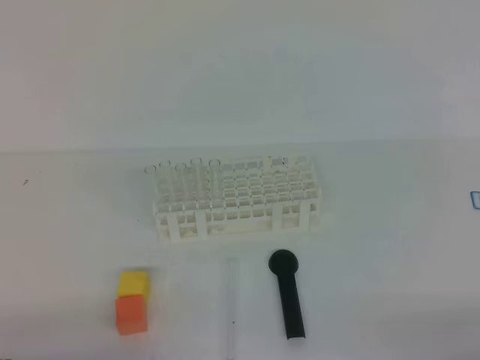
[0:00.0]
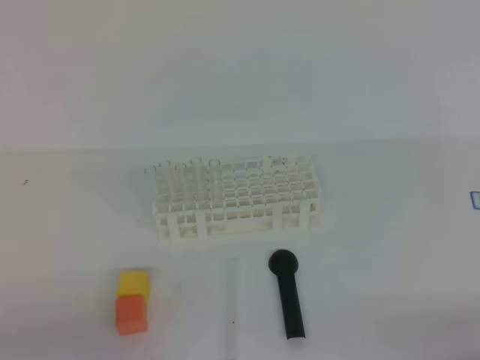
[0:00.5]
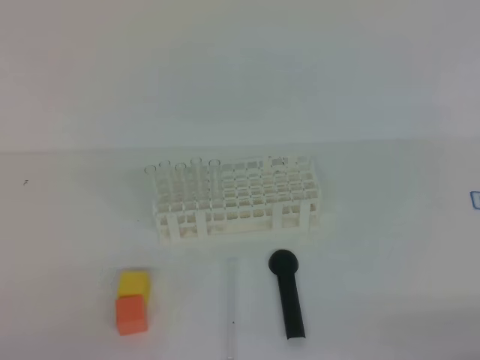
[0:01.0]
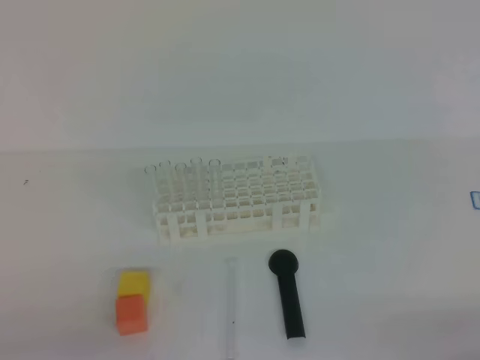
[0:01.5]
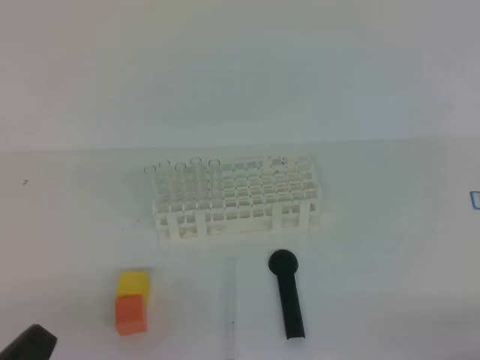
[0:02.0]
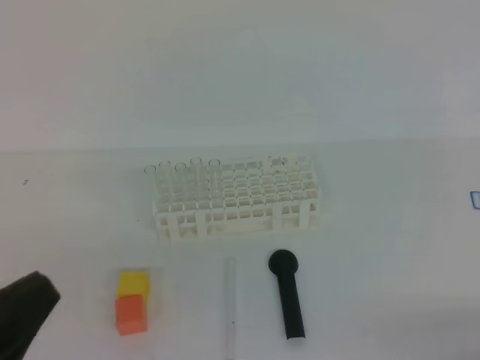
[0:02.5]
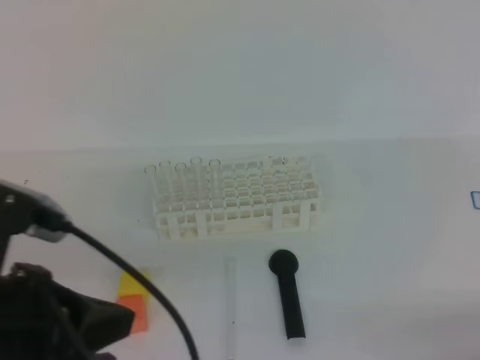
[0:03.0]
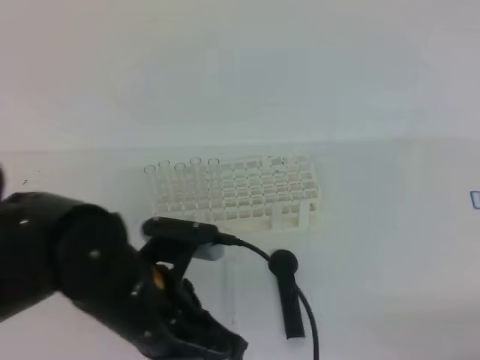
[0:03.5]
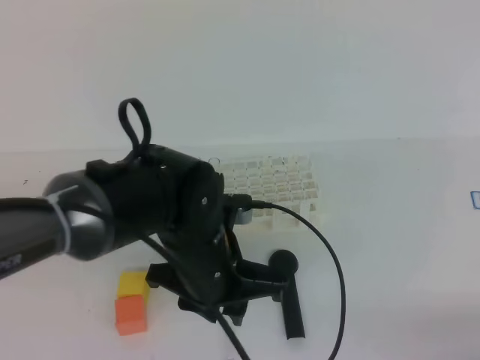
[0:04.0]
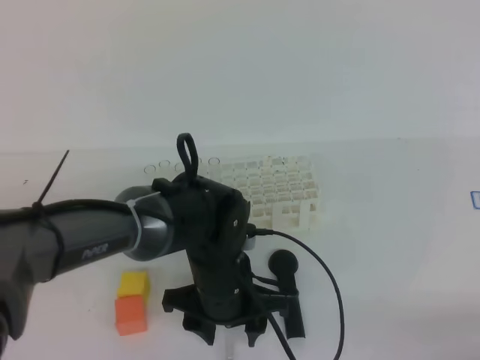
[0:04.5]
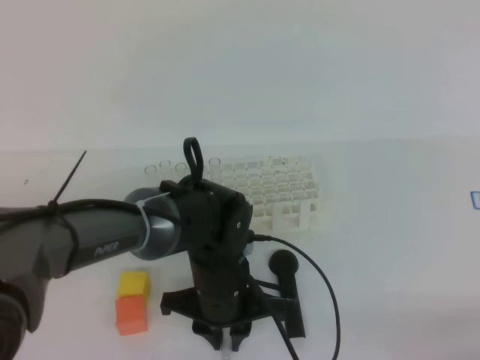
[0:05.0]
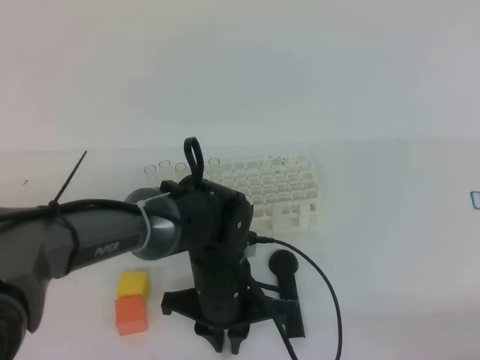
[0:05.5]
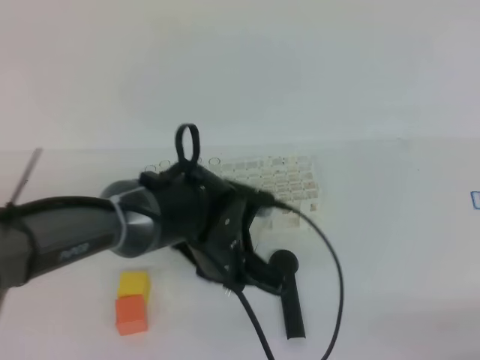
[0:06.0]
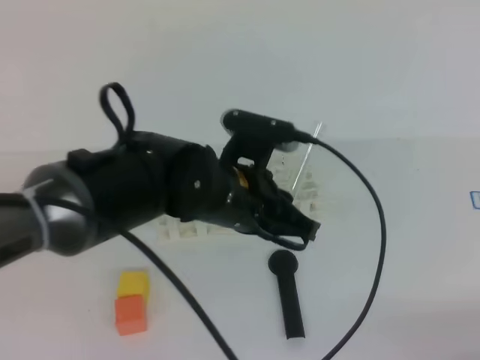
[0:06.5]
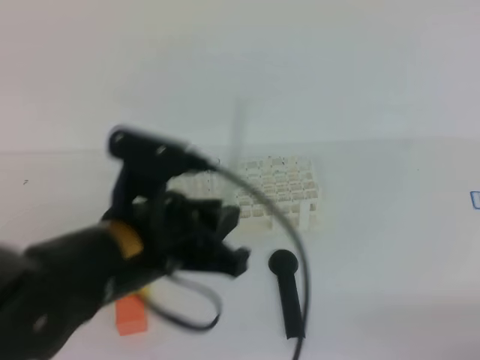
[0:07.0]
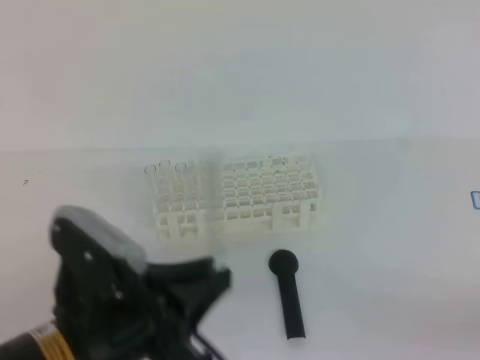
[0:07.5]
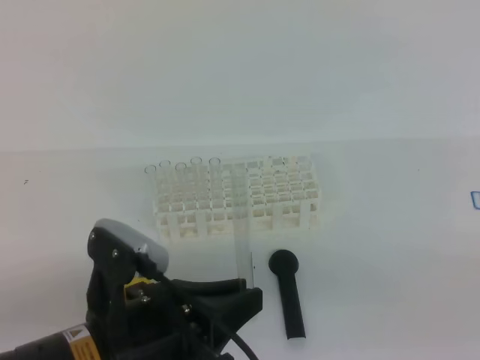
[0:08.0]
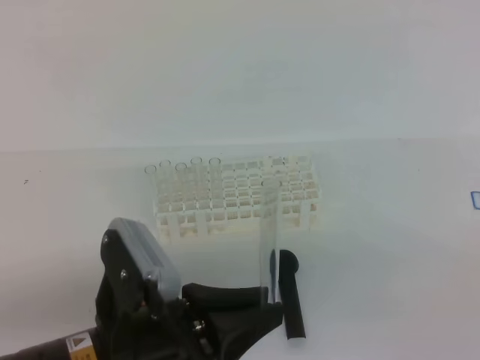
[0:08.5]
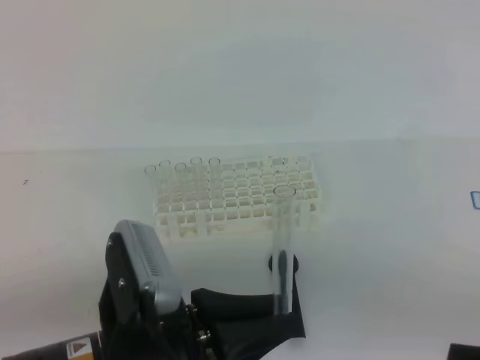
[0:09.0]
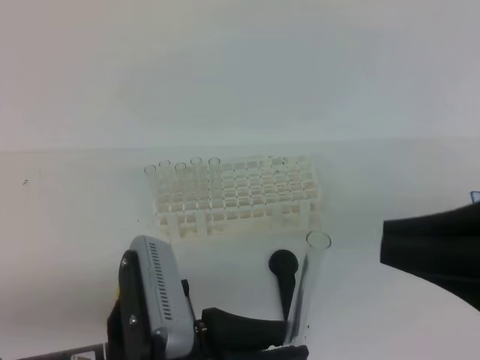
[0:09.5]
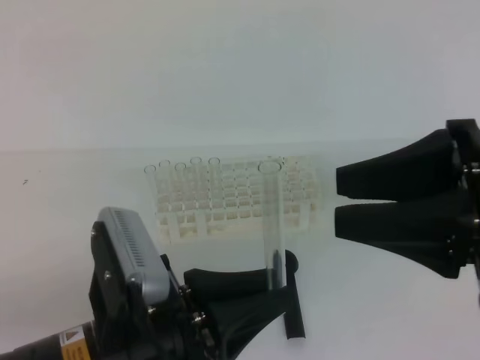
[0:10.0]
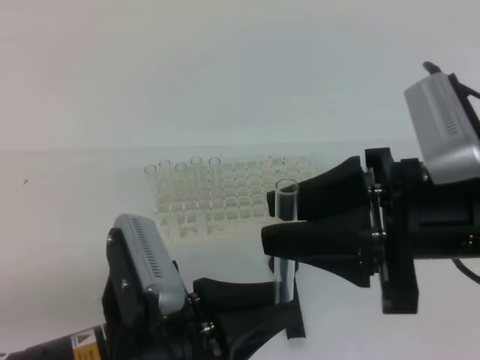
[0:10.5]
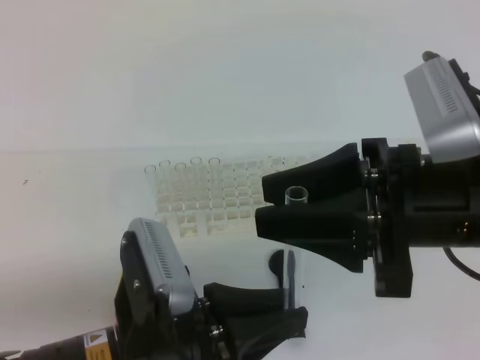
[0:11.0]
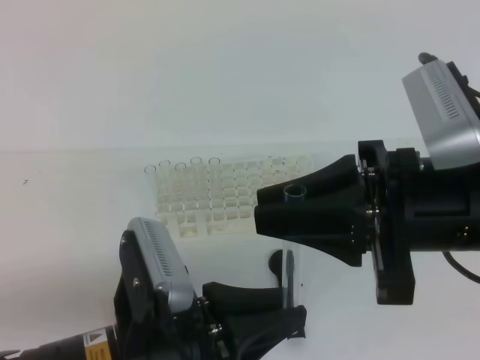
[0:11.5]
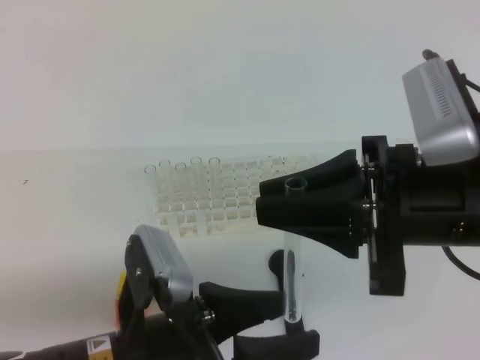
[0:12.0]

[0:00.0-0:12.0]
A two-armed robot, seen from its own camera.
0:02.0 to 0:04.0: The left gripper moves to the right and forward, roughly 30 cm, and opens its fingers.
0:04.0 to 0:06.0: The left gripper changes place by about 5 cm, and opens, then closes again.
0:06.0 to 0:08.0: The left gripper goes roughly 20 cm backward and to the left, while the right gripper travels upward by some 10 cm.
0:08.0 to 0:10.0: The right gripper travels forward, to the left and upward by about 20 cm, and opens its fingers.
0:10.0 to 0:12.0: The right gripper changes place by roughly 5 cm, and closes its fingers; the left gripper opens its fingers.

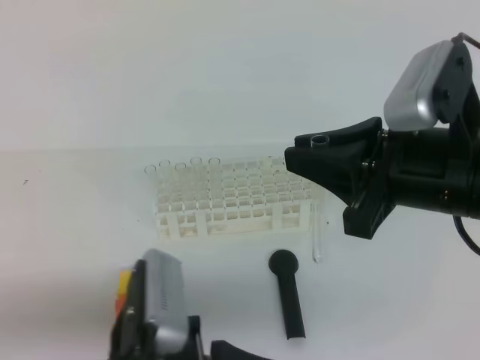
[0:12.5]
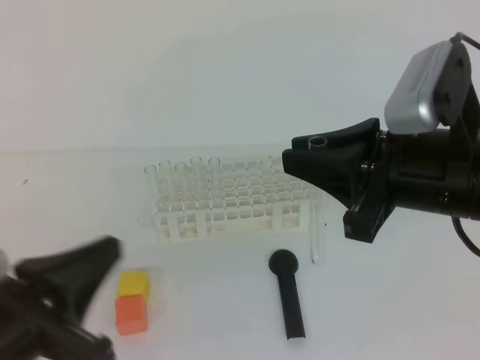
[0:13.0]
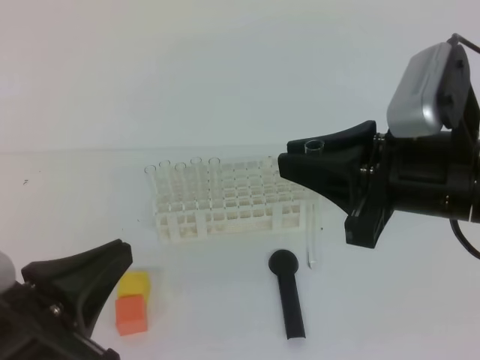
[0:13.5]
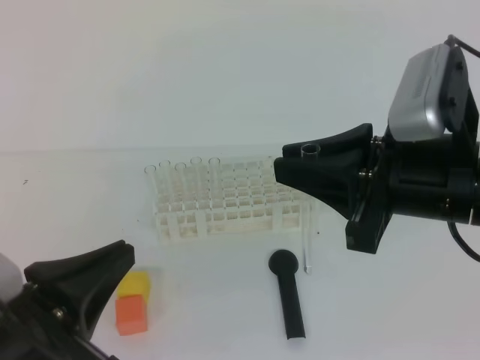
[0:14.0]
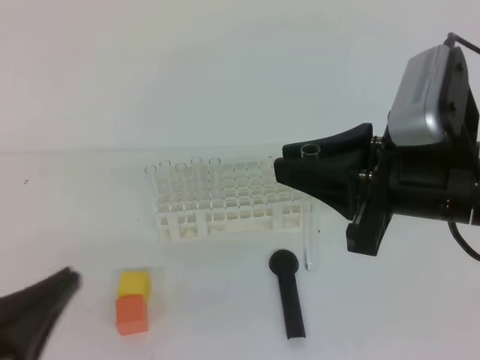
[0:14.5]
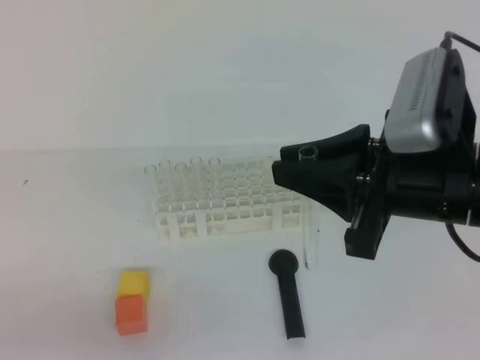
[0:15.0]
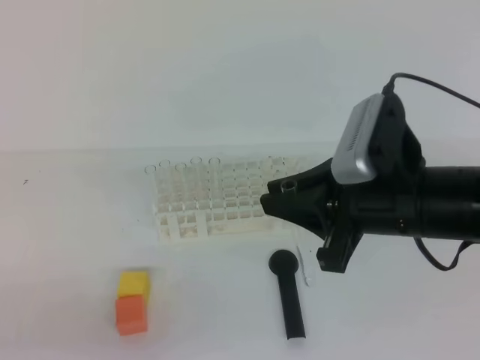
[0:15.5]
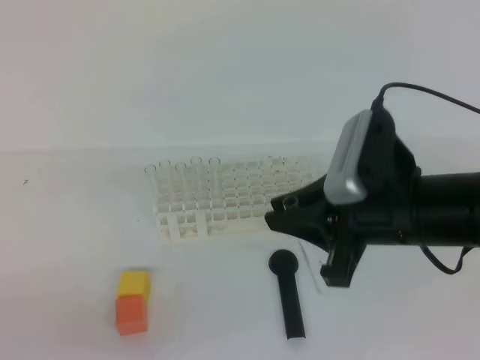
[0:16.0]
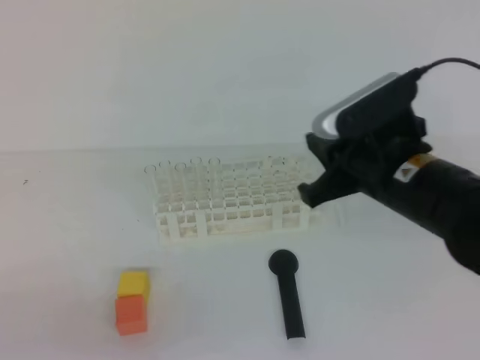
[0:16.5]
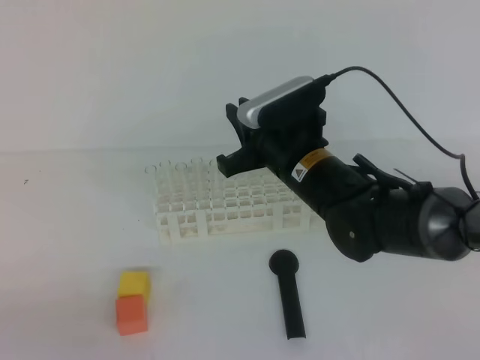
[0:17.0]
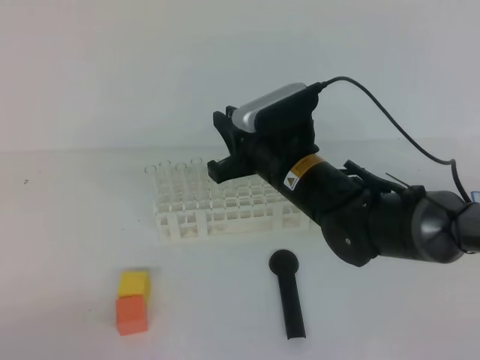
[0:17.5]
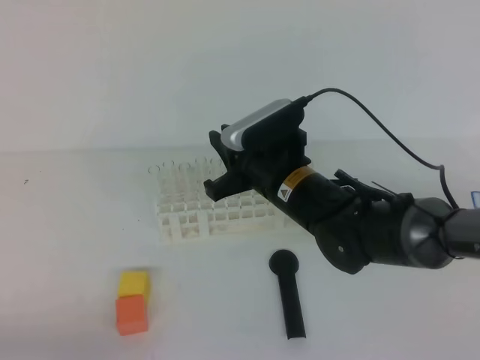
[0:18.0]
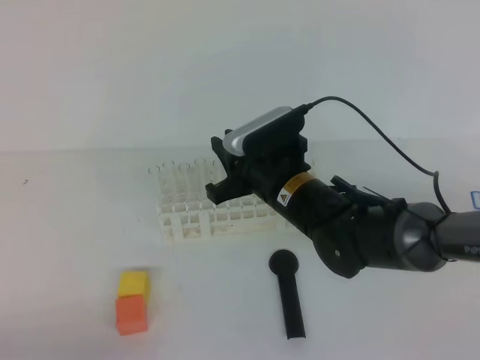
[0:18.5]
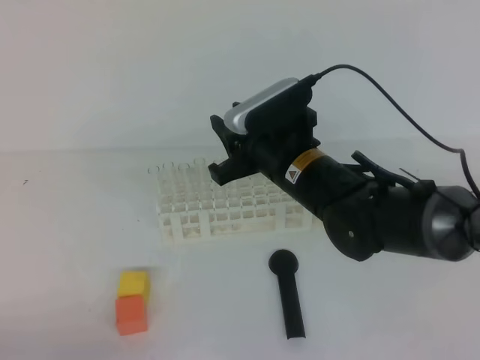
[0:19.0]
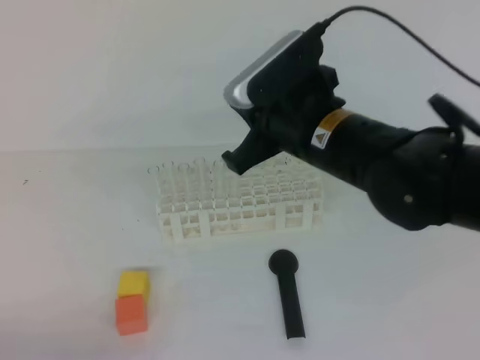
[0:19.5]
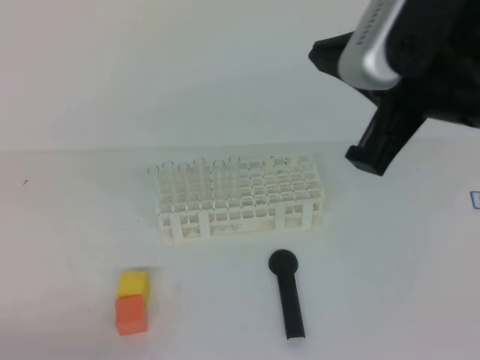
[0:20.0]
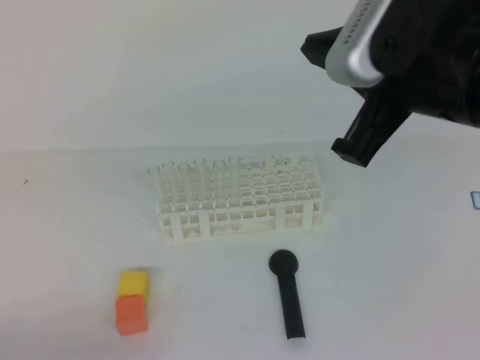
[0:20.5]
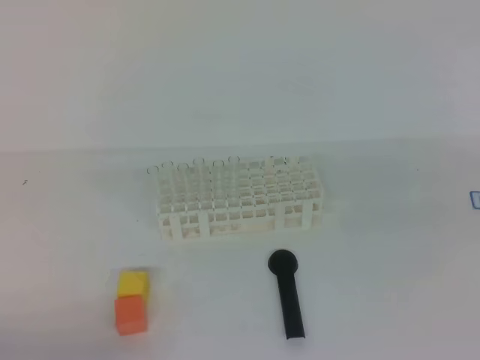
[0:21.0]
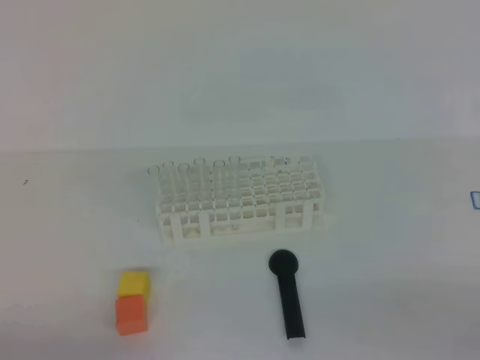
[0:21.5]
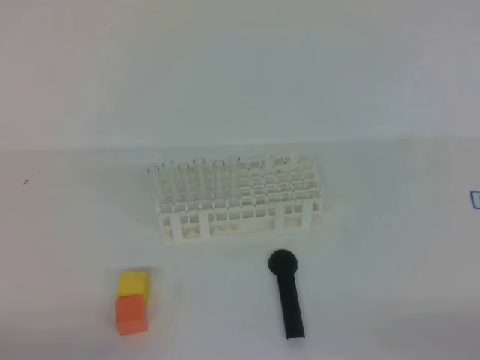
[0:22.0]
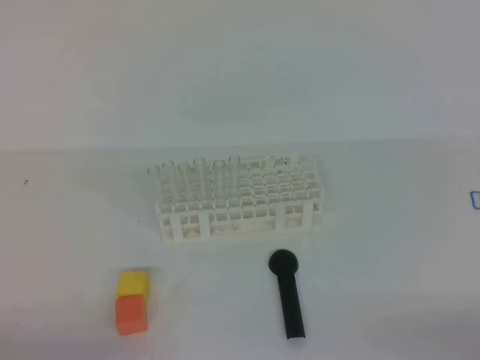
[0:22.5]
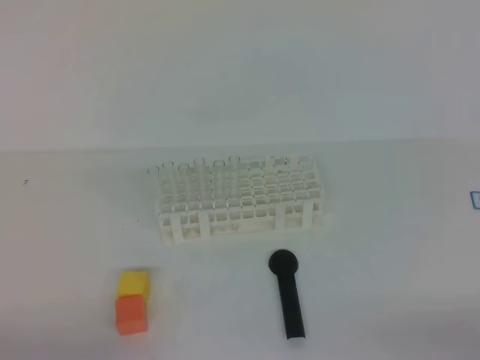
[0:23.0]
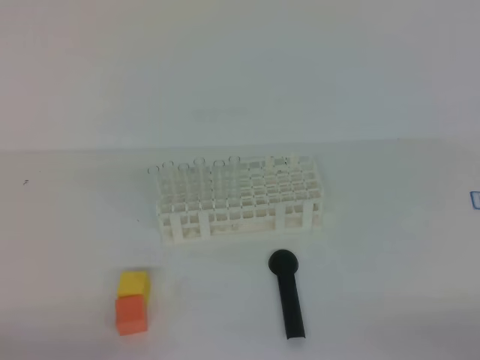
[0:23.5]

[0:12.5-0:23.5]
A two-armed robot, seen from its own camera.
0:12.5 to 0:14.5: The left gripper moves to the left, roughly 10 cm.
0:14.5 to 0:16.0: Both grippers move downward, some 5 cm.
0:16.0 to 0:18.0: The right gripper is displaced to the left, forward and downward by about 15 cm.
0:18.0 to 0:20.0: The right gripper goes about 25 cm upward, backward and to the right, and opens, then closes once more.
0:20.0 to 0:21.5: The right gripper is displaced to the right, downward and backward by roughly 30 cm.
